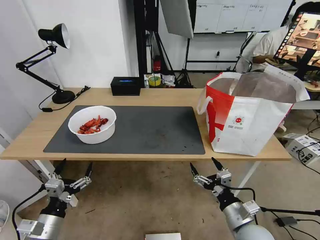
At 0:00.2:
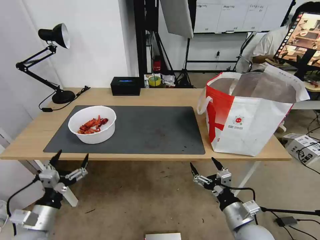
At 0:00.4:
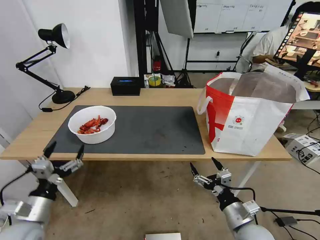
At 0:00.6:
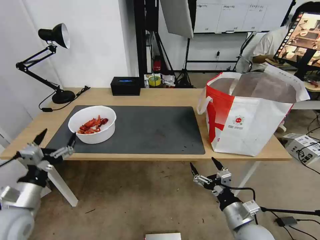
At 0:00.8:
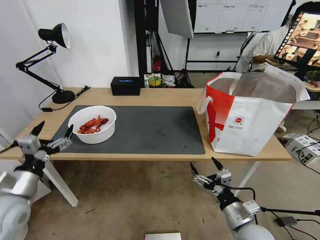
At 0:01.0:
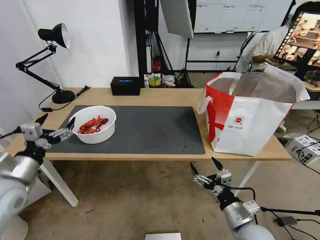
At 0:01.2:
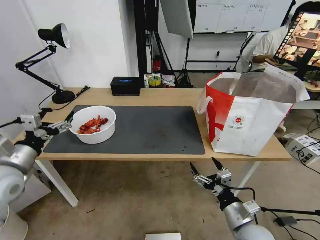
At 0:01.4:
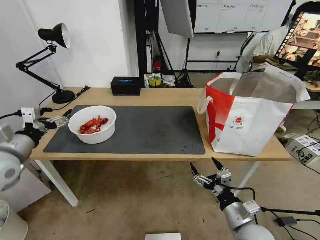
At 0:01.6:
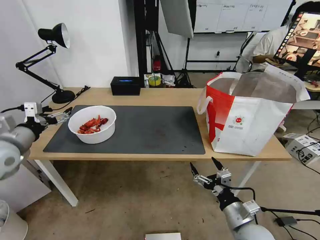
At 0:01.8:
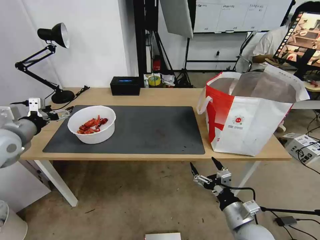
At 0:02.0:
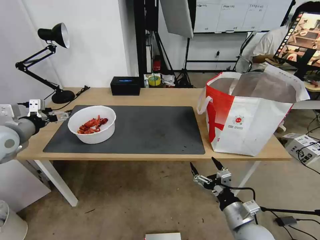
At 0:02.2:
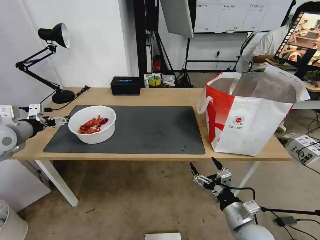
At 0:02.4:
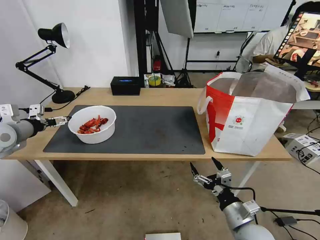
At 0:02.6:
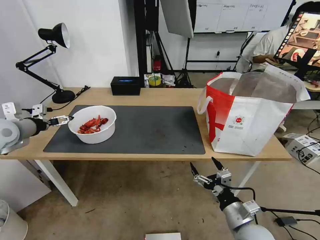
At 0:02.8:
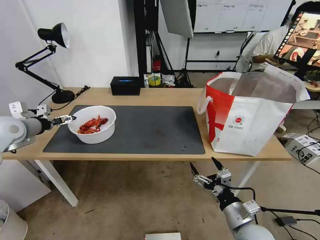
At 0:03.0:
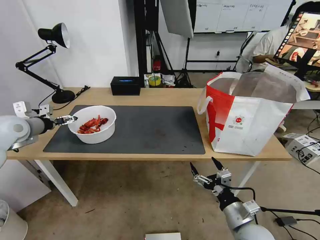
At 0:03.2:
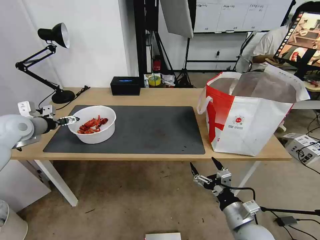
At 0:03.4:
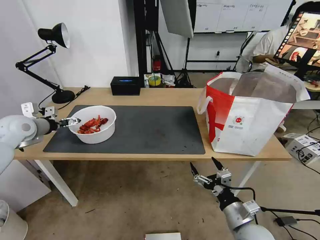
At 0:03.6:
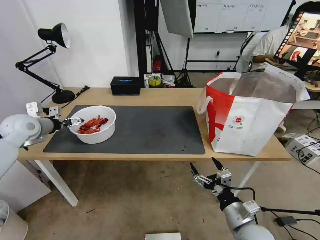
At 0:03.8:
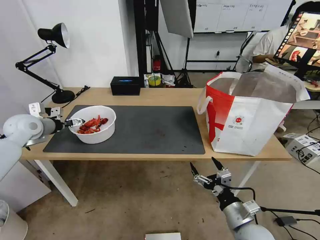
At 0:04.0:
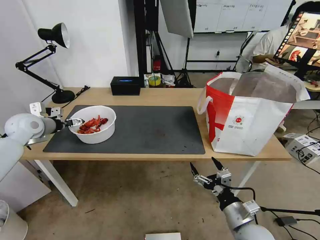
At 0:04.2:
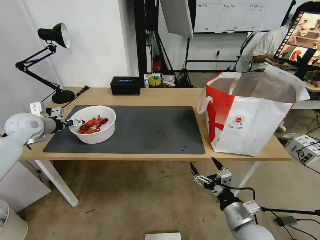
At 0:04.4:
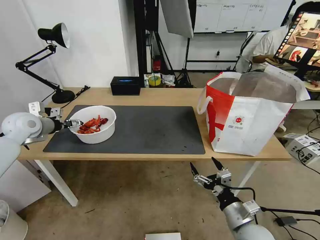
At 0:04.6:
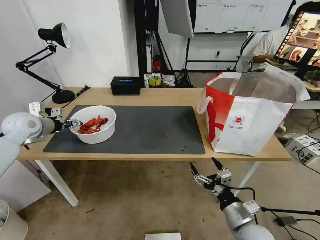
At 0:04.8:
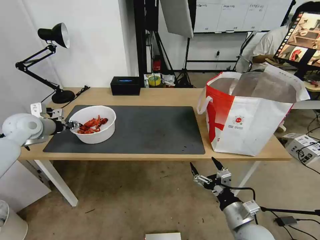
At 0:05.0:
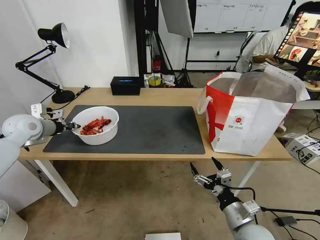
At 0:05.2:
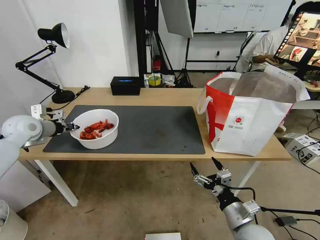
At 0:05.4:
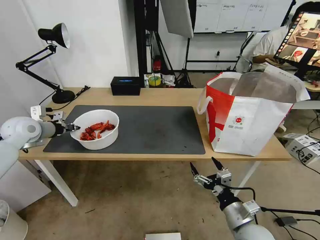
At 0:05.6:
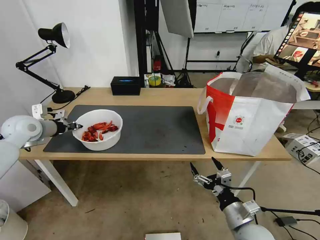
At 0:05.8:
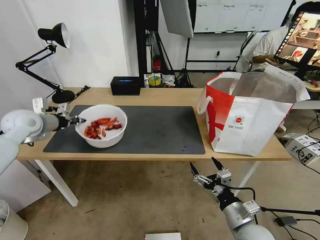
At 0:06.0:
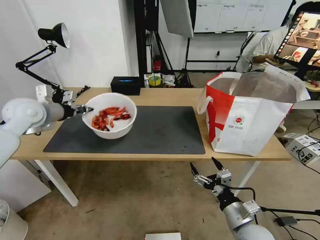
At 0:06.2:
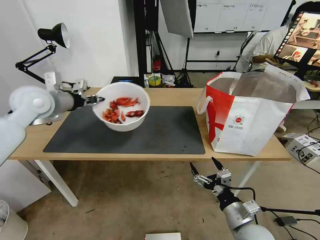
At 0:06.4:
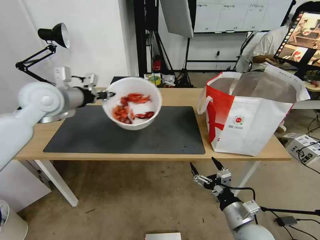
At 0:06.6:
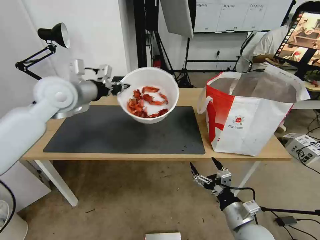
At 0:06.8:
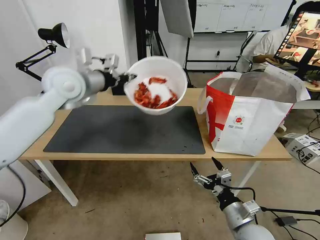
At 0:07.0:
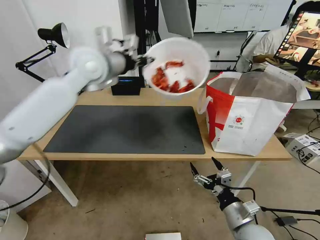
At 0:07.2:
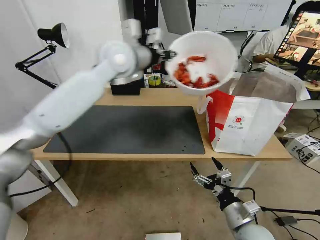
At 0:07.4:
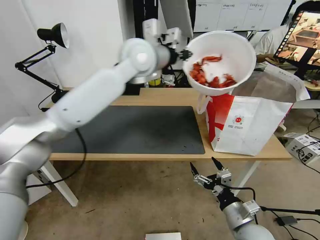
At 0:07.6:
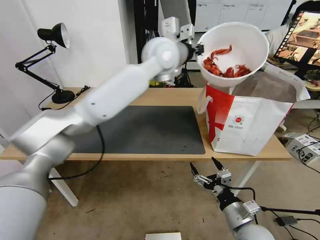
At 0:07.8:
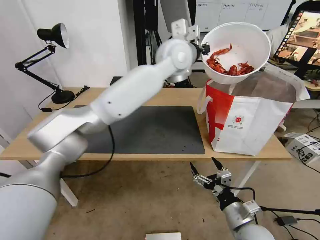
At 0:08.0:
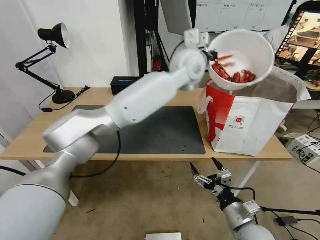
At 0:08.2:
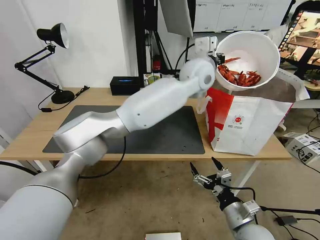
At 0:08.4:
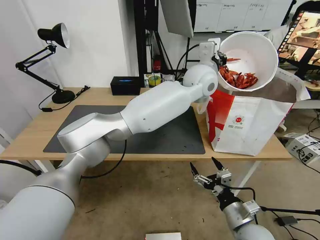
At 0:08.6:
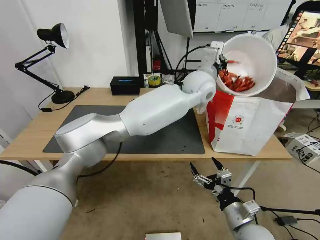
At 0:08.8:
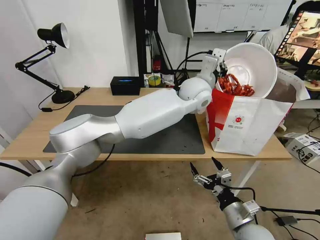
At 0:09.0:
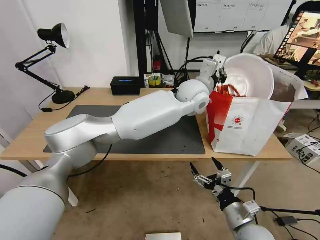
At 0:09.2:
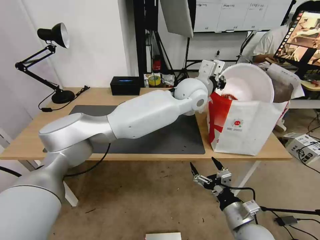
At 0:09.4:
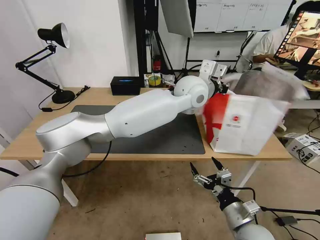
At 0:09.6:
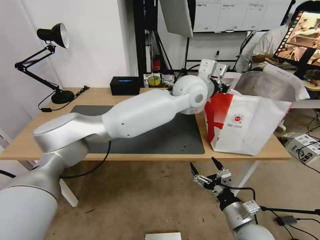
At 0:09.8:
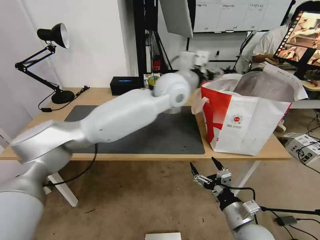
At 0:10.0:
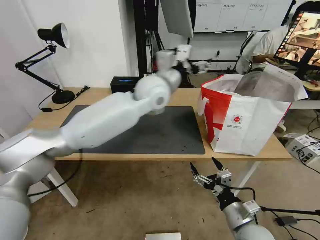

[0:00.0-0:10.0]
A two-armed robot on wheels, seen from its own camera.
Task of the whole recording: Pick up the trash from the table and place it into the takeout bag.
0:00.0 to 0:01.4: The left gripper moves upward, forward and to the left, approximately 25 cm.
0:01.4 to 0:02.8: The left gripper is displaced forward by some 10 cm.
0:02.8 to 0:04.2: The left gripper moves some 5 cm.
0:04.2 to 0:05.8: The left gripper closes its fingers.
0:05.8 to 0:07.2: The left gripper heads to the right and upward, covering about 35 cm.
0:07.2 to 0:08.6: The left gripper is displaced to the right by some 25 cm.
0:08.6 to 0:10.0: The left gripper is displaced to the left by approximately 15 cm, and opens its fingers.

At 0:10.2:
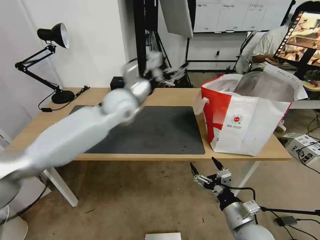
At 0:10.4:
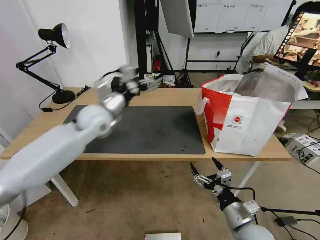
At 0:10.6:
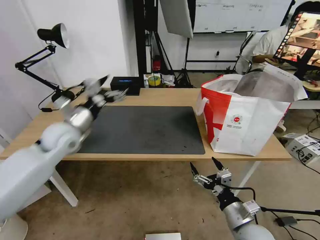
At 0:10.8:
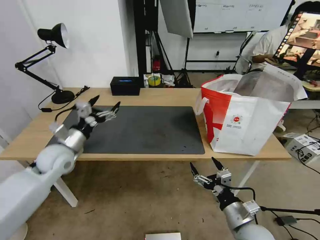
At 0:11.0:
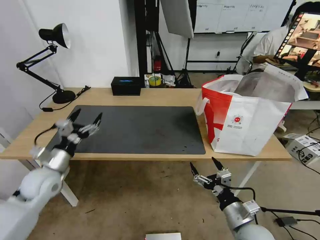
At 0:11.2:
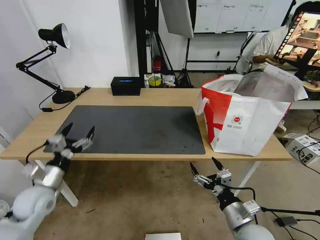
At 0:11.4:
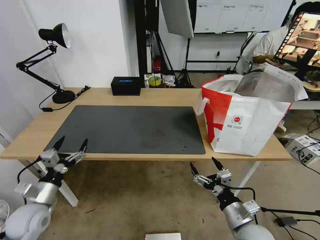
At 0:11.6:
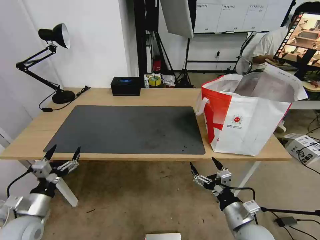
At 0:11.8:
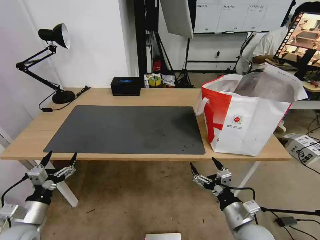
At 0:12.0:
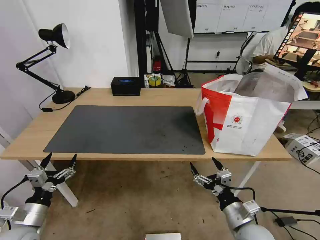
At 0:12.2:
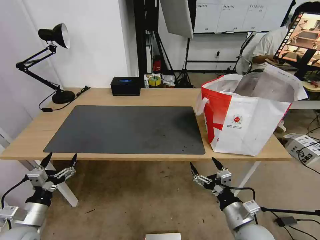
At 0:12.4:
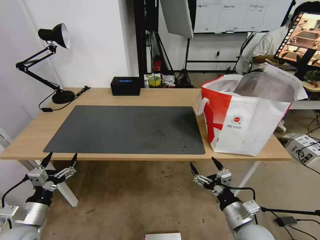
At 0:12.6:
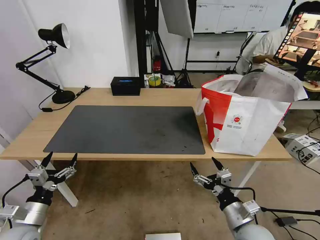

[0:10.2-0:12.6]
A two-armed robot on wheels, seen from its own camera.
Task of the whole recording: Pick up the trash from the table and place it into the takeout bag.
0:10.2 to 0:11.4: The left gripper shifts approximately 40 cm to the left, backward and downward.
0:11.4 to 0:12.6: The left gripper shifts approximately 5 cm backward.

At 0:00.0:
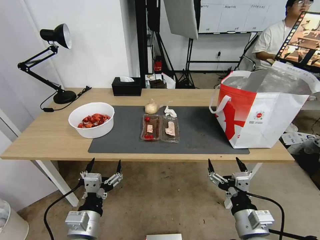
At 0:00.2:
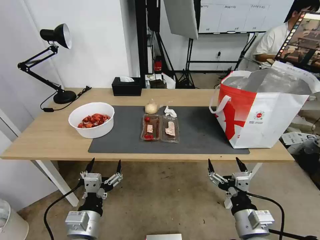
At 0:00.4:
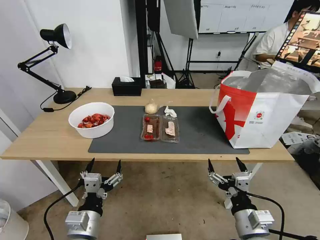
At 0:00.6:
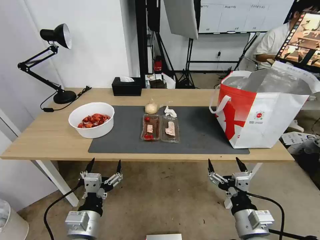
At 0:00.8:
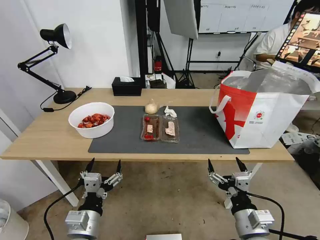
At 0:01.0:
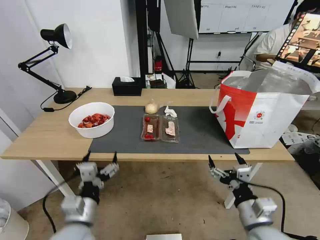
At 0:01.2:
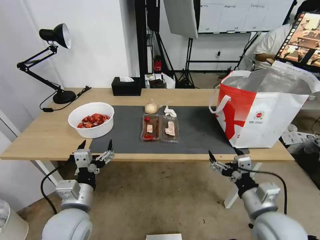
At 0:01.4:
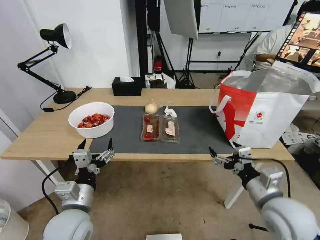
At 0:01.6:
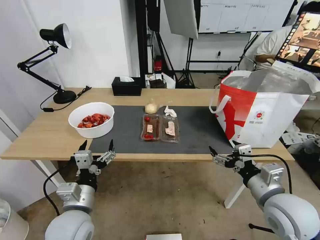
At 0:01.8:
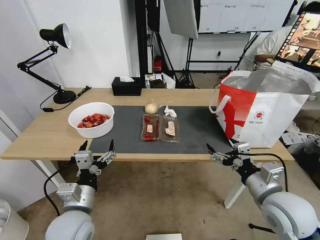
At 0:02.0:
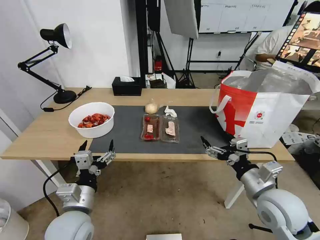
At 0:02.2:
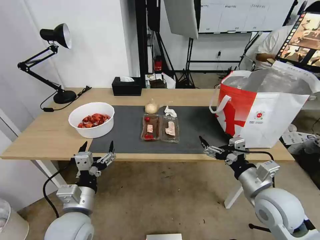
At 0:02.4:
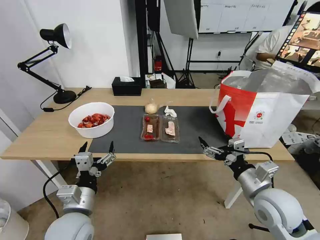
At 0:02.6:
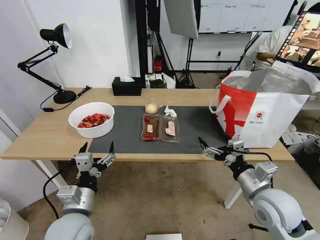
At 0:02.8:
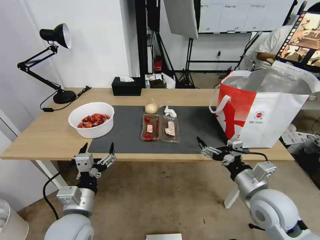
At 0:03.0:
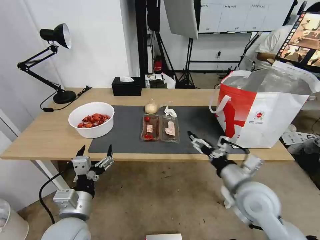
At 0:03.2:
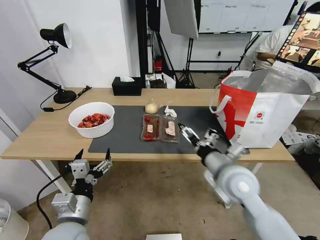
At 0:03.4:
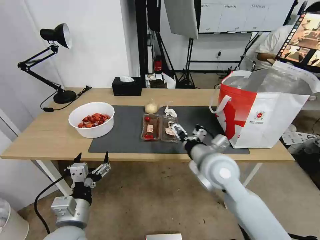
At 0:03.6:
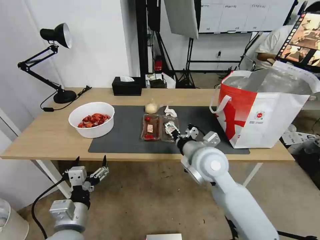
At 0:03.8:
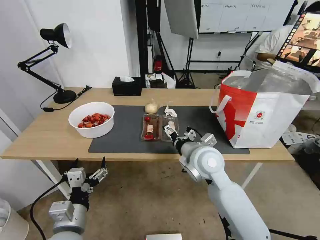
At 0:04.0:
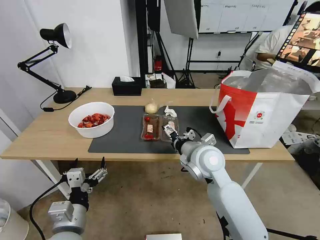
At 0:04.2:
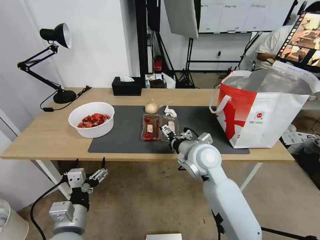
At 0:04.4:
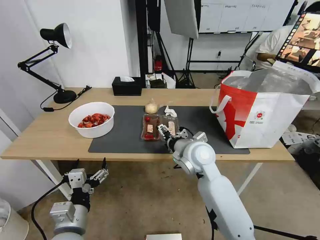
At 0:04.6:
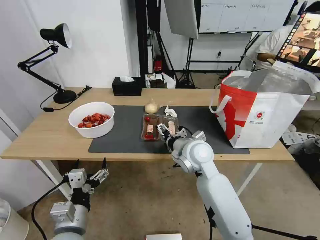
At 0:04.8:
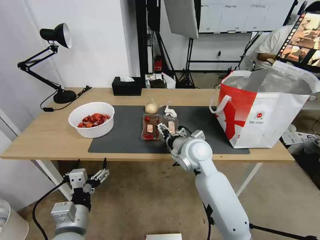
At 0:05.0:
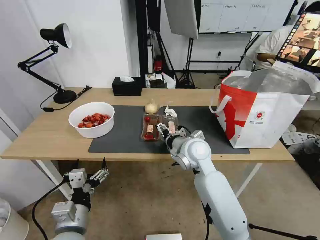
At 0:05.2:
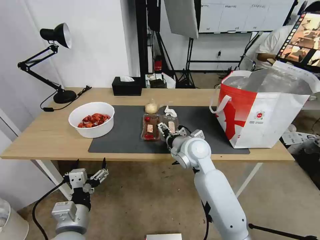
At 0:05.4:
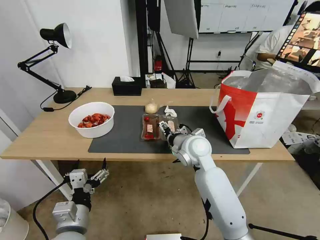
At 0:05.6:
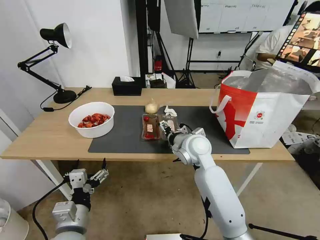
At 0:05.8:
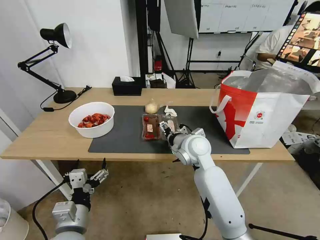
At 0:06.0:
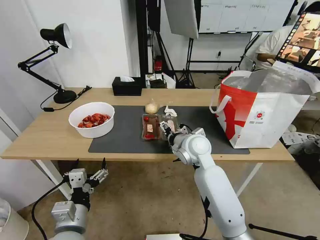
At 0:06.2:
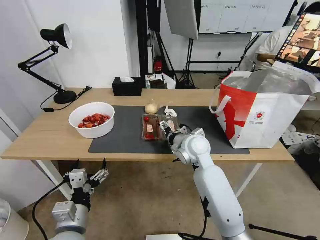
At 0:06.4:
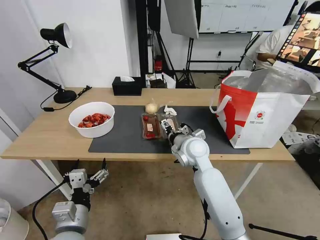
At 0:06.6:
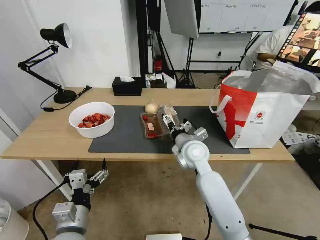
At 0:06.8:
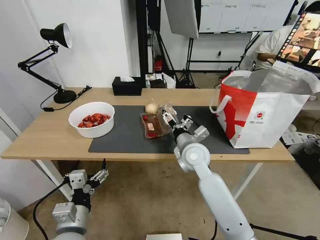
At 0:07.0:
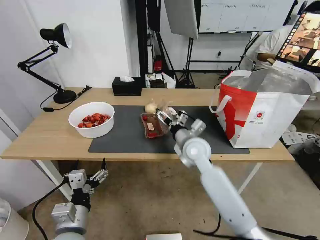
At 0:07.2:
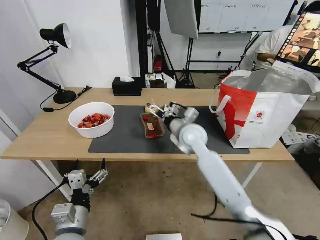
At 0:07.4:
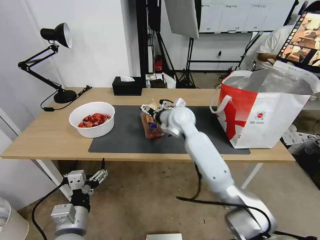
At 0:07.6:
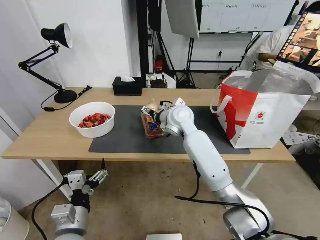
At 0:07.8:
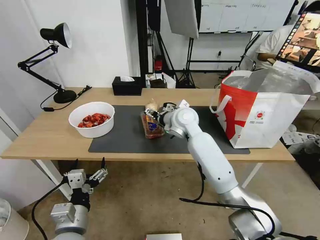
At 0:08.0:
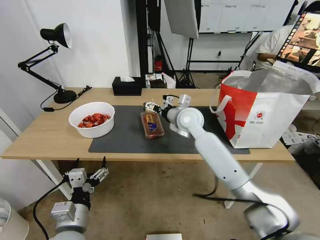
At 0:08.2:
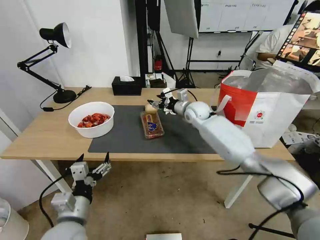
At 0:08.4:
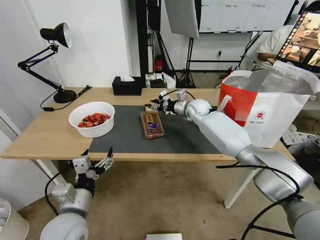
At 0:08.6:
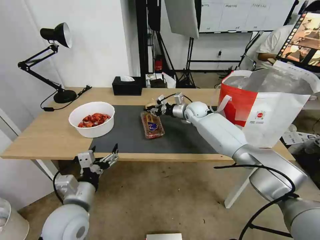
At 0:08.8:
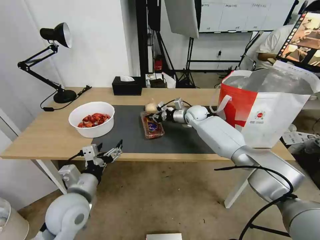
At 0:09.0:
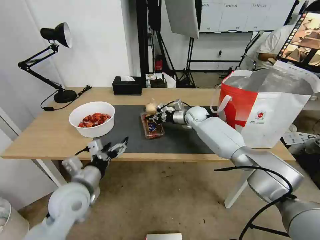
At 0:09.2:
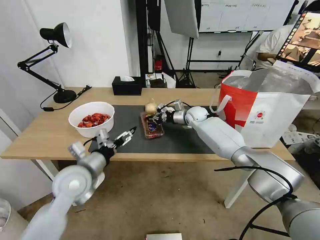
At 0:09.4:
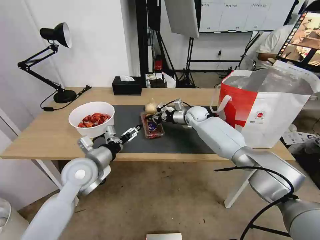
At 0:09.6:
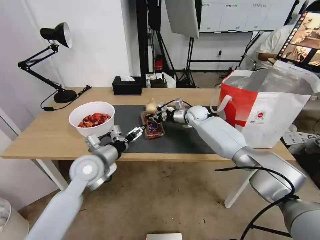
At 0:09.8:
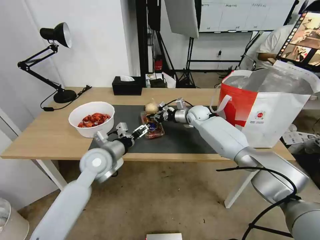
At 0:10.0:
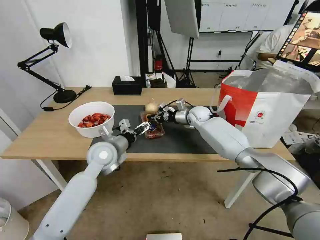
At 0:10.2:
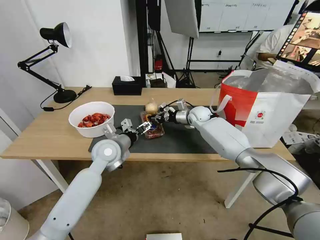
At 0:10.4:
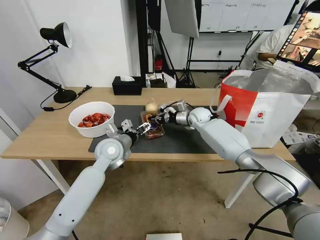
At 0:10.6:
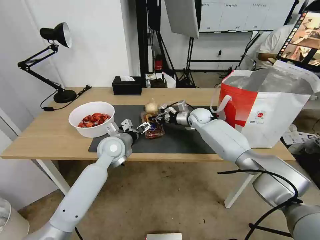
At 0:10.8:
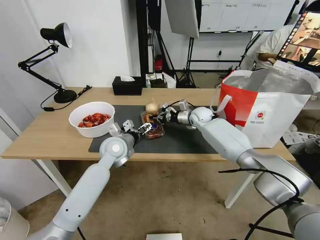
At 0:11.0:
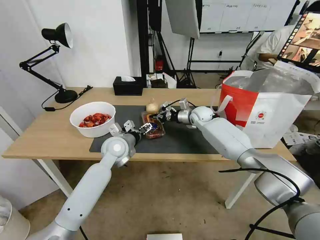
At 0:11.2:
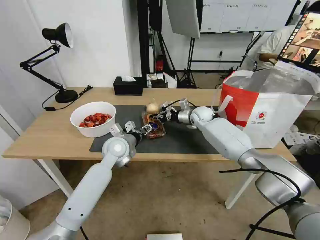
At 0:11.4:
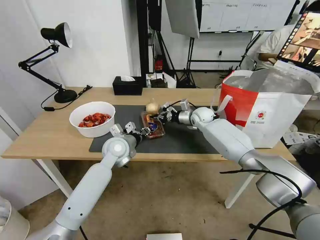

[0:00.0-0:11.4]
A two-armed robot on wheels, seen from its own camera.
Task of the whole recording: Pick up the trash from the table and place it into the takeout bag.
0:02.8 to 0:04.2: The right gripper heads to the left and forward, covering roughly 20 cm.
0:04.2 to 0:05.6: The right gripper shifts by approximately 5 cm.
0:07.2 to 0:08.6: The right gripper goes about 20 cm forward, and closes up; the left gripper is displaced forward by about 5 cm.
0:08.6 to 0:10.0: The left gripper moves forward, about 15 cm.
0:10.0 to 0:11.4: The left gripper travels forward by roughly 5 cm, and closes up.
